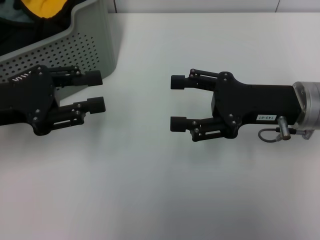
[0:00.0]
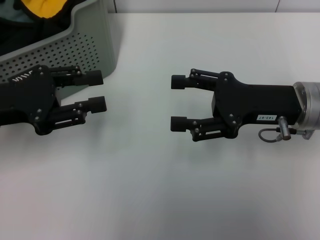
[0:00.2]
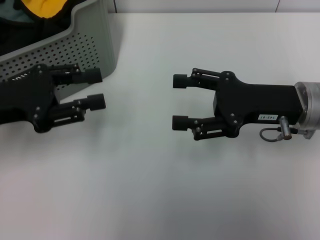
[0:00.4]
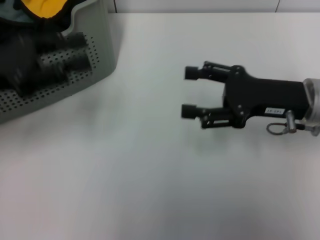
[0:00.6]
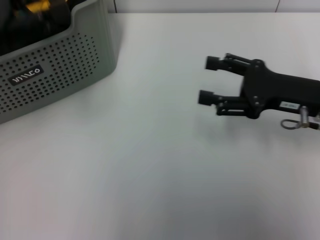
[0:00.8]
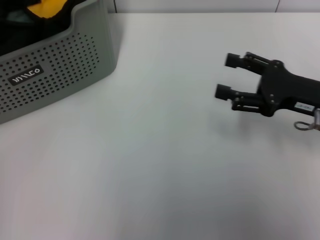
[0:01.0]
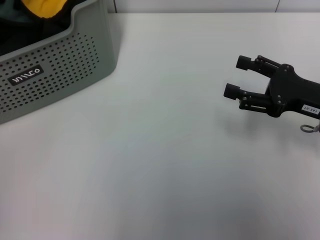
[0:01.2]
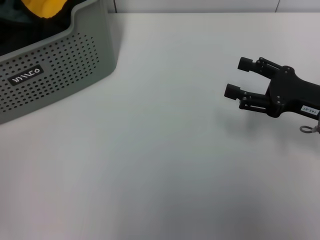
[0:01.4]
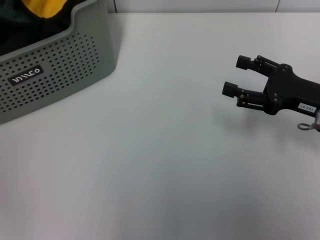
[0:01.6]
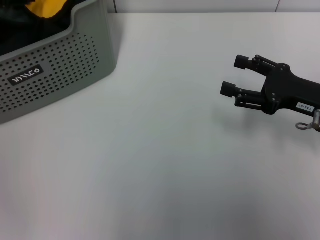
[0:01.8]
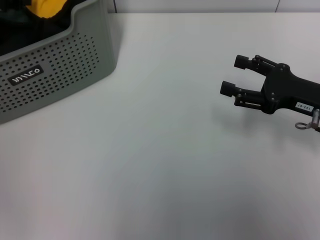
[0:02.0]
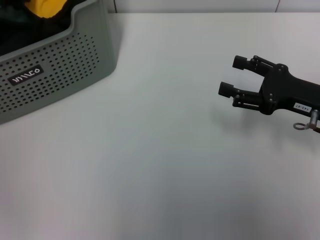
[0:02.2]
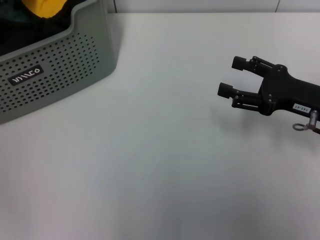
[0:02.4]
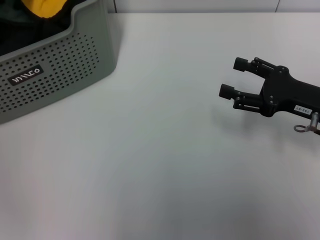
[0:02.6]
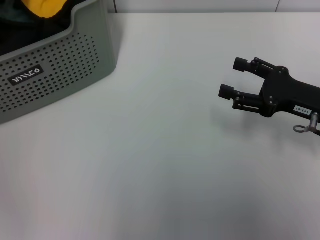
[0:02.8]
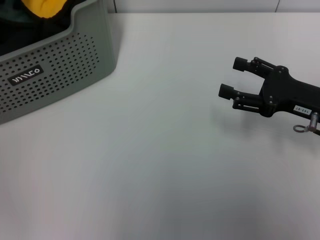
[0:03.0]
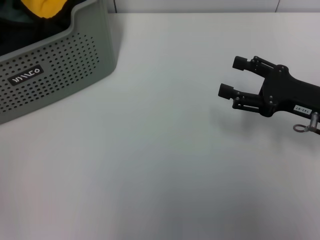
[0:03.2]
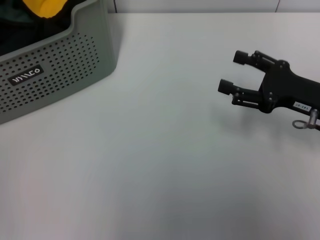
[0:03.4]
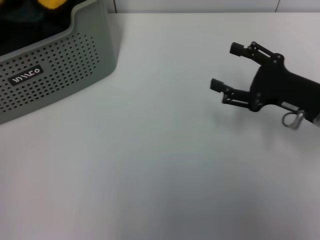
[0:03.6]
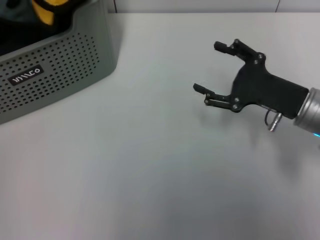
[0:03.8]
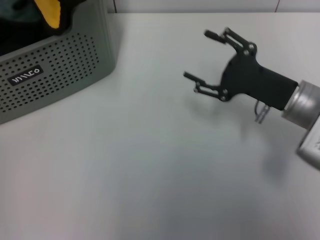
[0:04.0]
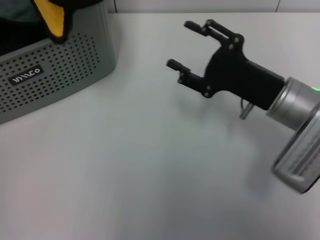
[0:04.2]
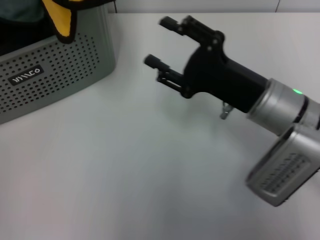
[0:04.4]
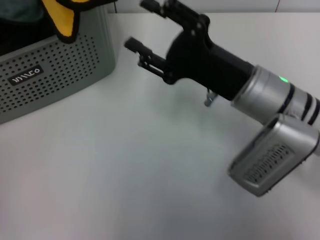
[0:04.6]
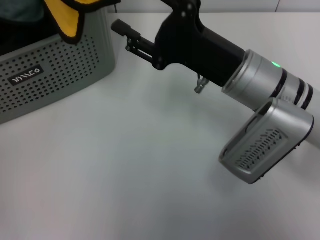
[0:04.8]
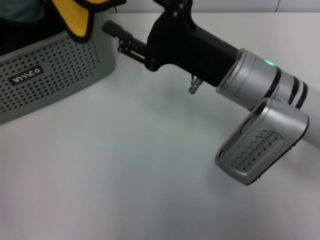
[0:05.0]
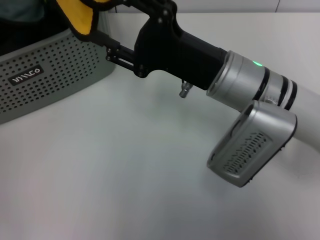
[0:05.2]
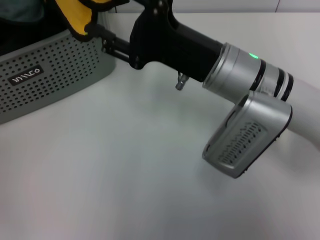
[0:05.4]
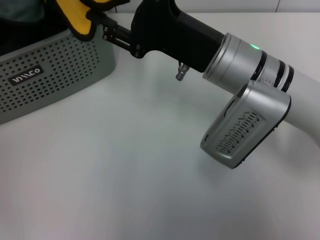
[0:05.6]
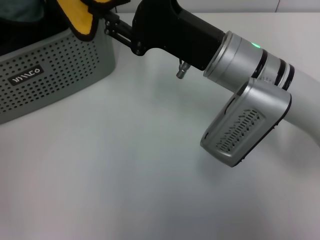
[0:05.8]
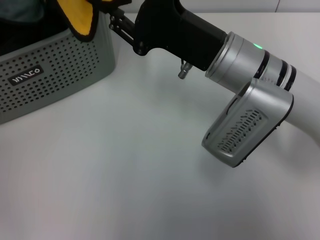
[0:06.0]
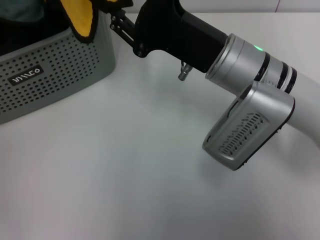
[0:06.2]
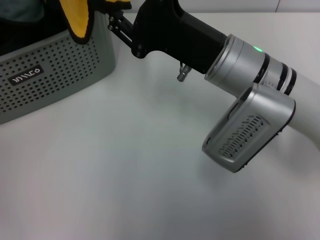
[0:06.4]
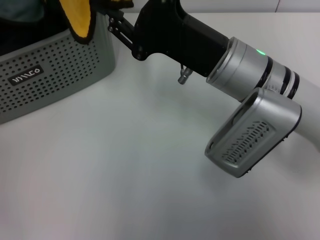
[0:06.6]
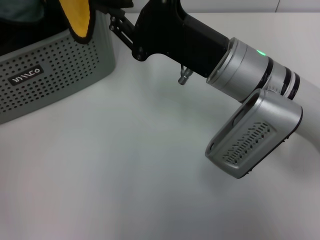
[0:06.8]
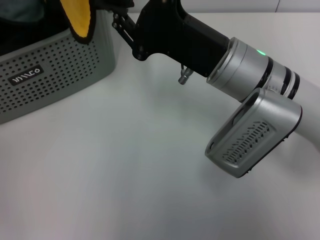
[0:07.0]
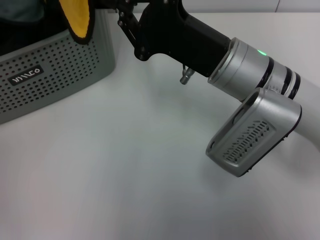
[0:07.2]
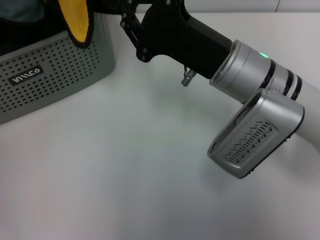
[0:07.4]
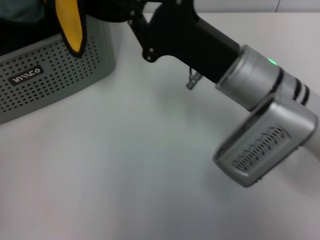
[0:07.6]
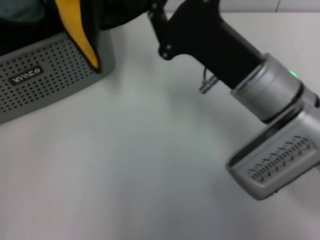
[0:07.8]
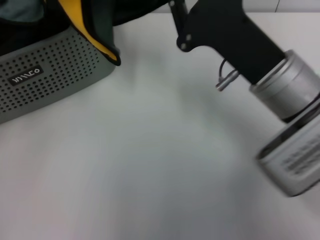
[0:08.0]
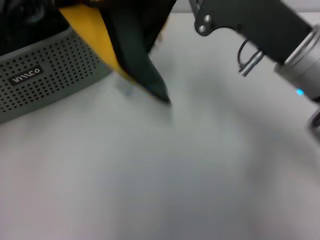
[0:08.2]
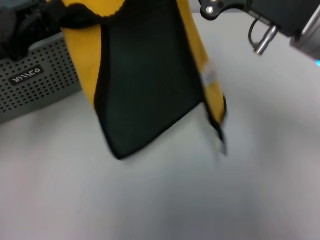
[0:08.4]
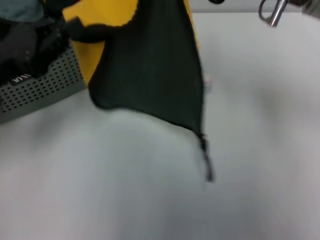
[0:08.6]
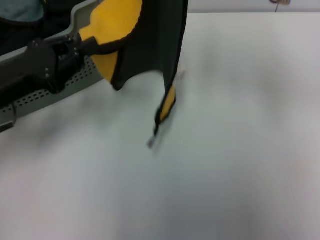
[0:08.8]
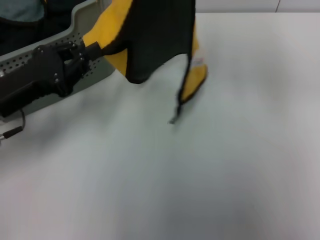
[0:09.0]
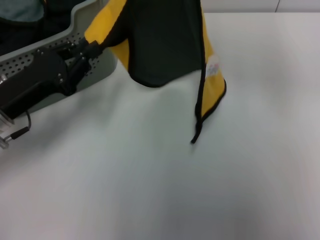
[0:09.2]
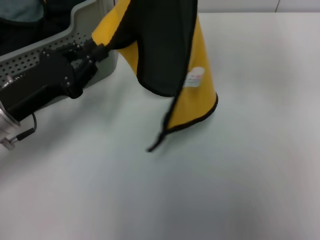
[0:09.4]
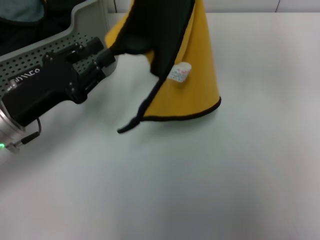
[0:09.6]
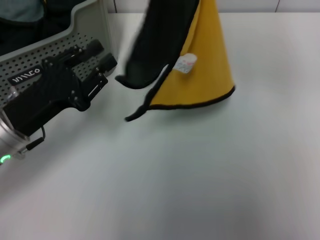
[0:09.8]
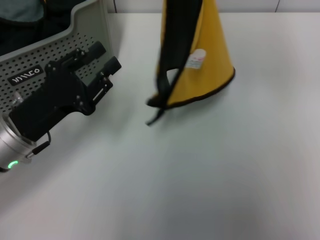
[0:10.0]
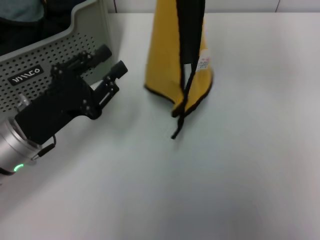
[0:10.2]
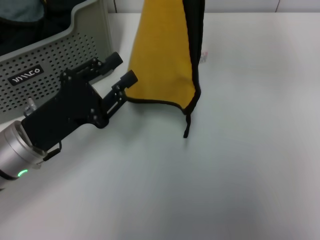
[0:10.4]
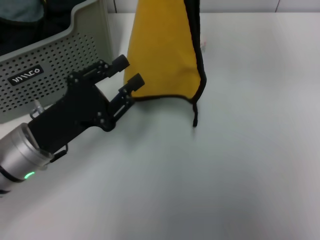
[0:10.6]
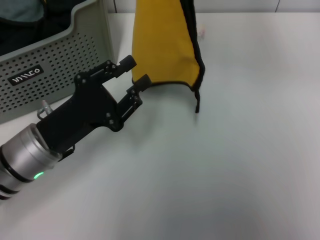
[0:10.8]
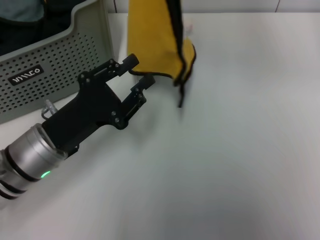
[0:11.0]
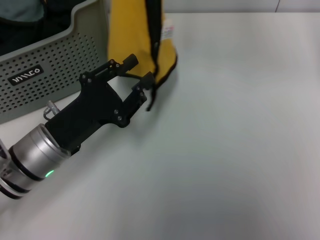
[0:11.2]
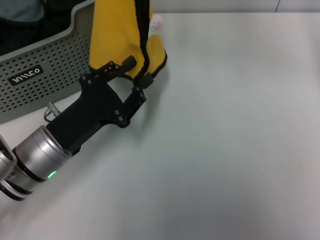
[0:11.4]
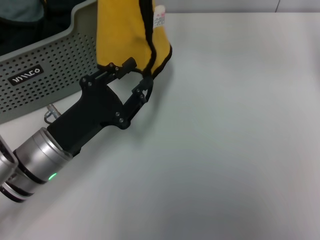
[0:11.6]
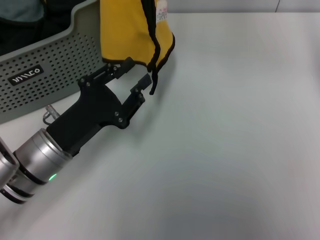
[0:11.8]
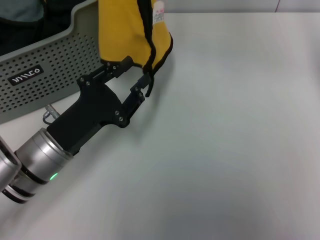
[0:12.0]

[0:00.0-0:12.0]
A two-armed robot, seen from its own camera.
Task of the whole recording: pick up the towel from the storage box and lay it flat on the table.
Step, 0:00.0 to 0:02.4: Pick up a towel with the left gripper.
Step, 0:02.6 to 0:07.2: Spread the towel flat with the left gripper.
0:00.0 to 0:01.6: The left gripper moves upward and forward, about 15 cm, while the right gripper moves to the right, some 5 cm.
0:03.0 to 0:04.4: The right gripper travels to the left by some 10 cm, while the left gripper moves upward and backward, about 10 cm.
0:04.4 to 0:06.0: The right gripper is displaced to the left by approximately 5 cm.
0:06.0 to 0:07.6: The right gripper closes its fingers.
0:07.6 to 0:09.0: The left gripper is displaced downward by some 15 cm. The right gripper moves upward and to the right, about 15 cm.
0:09.0 to 0:10.4: The left gripper ends up about 5 cm from where it was, and opens its fingers.
0:10.4 to 0:12.0: The right gripper is displaced to the left by roughly 5 cm.

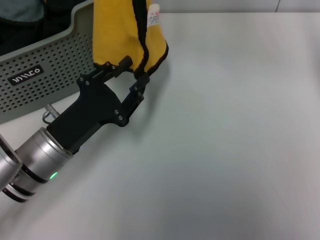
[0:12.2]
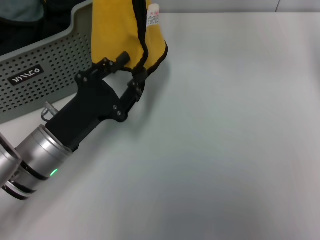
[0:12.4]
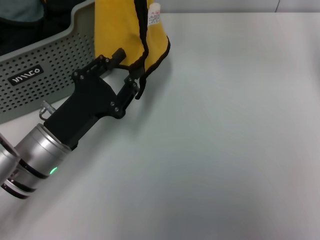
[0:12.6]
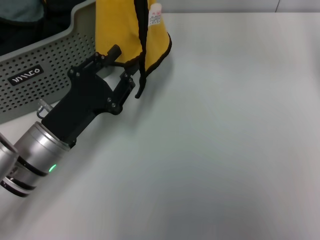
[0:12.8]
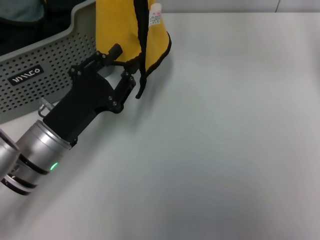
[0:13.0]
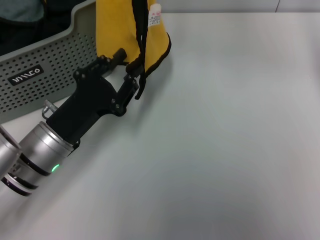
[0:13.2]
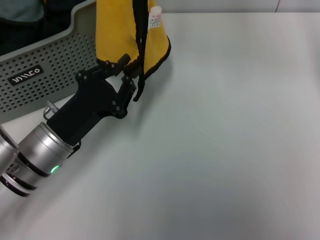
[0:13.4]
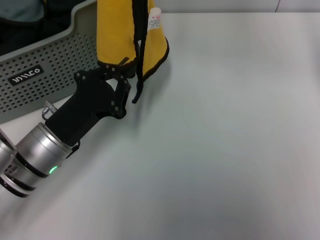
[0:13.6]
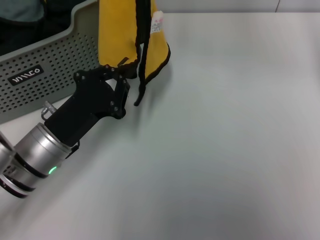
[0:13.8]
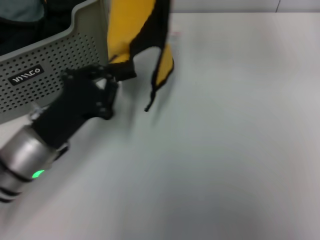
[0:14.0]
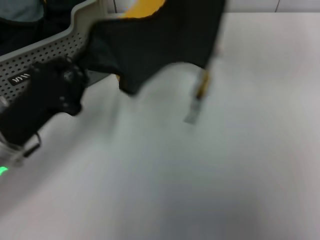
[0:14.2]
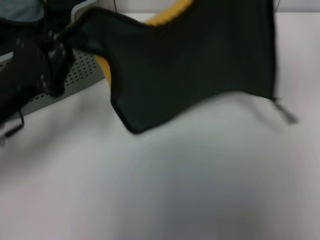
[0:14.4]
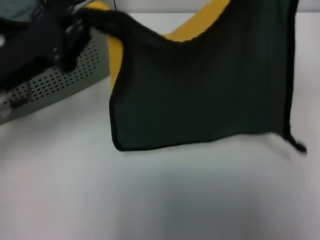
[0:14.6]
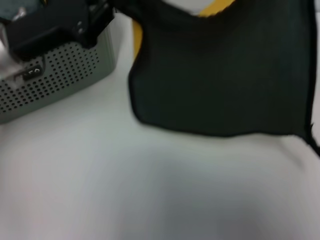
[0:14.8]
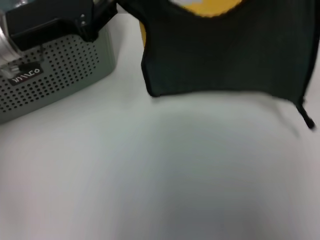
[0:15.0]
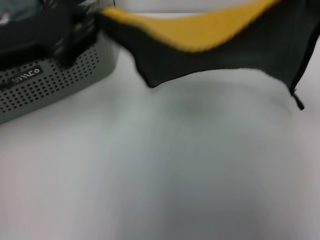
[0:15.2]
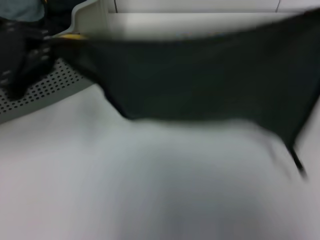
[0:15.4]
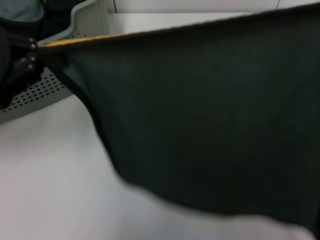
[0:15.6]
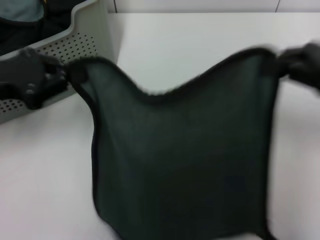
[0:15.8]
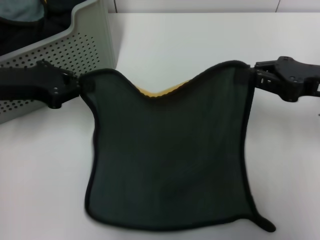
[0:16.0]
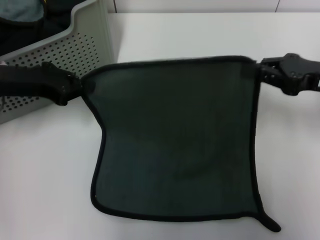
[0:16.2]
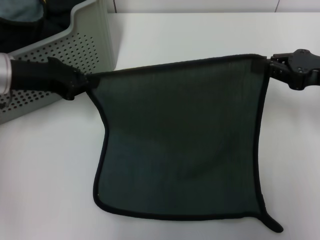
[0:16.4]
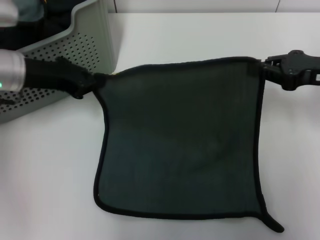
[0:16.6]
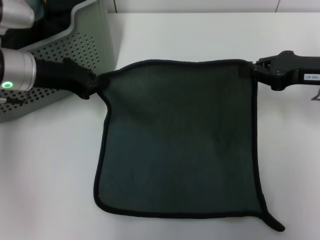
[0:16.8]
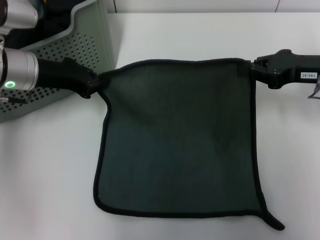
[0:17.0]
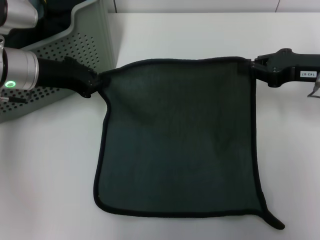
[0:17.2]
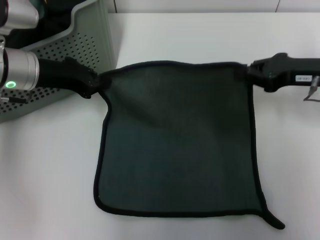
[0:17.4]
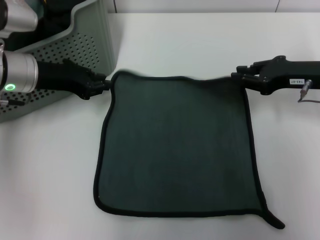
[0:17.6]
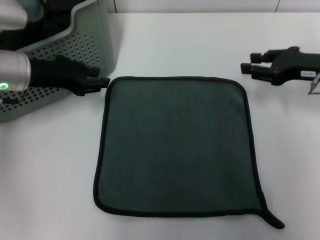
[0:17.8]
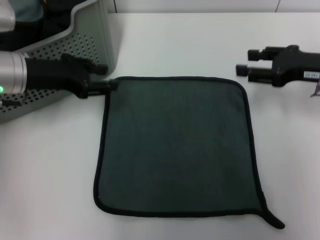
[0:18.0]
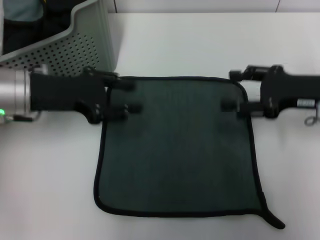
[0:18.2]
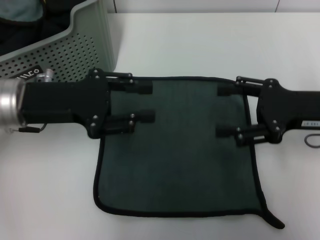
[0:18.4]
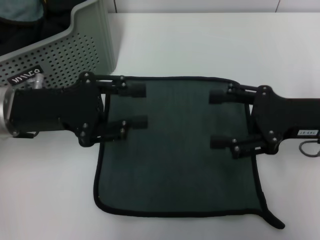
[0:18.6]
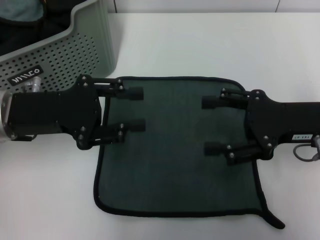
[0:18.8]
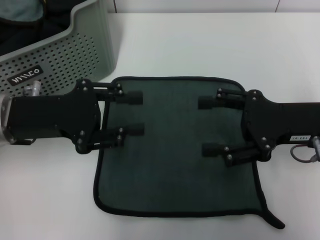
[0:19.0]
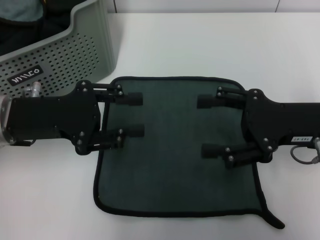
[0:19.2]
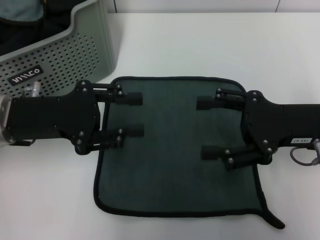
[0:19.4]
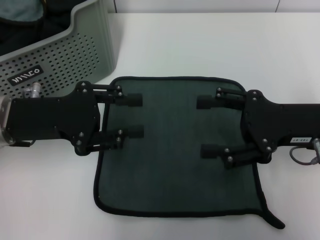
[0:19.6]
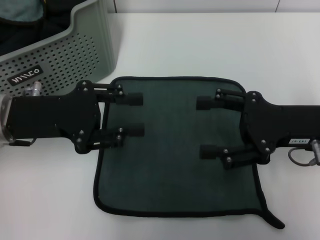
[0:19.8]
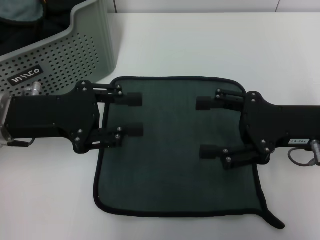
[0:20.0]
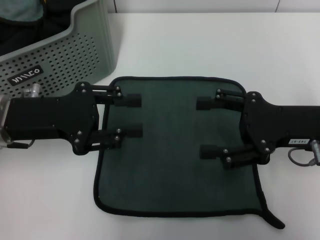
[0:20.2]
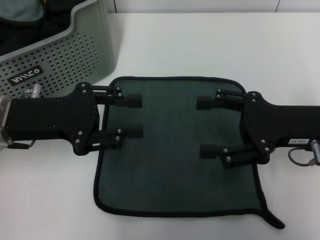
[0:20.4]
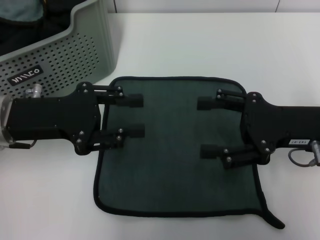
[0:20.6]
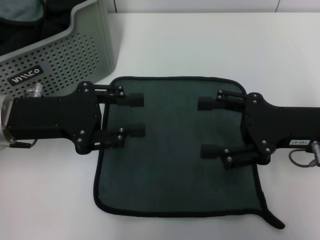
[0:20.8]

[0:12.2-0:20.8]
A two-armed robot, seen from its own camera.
Task of the whole recording: pick up the towel from the storage box and lay it flat on the table.
Step, 0:12.2 to 0:17.6: Spread the towel flat with the right gripper.
0:12.2 to 0:13.6: The grippers make only small movements.
0:13.6 to 0:15.0: The left gripper heads upward and forward, covering some 15 cm, and closes, while the right gripper is displaced to the right by roughly 20 cm.
0:15.0 to 0:16.6: The left gripper moves some 5 cm backward and comes back, while the right gripper is displaced downward by some 15 cm.
0:16.6 to 0:18.0: The right gripper opens its fingers, while the left gripper opens.
0:18.0 to 0:19.4: The grippers both shift backward by some 10 cm. The right gripper opens up.
0:19.4 to 0:20.8: Both grippers stay put.

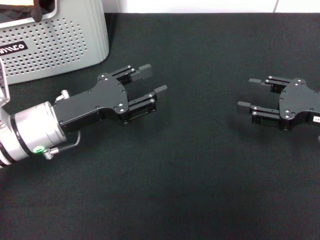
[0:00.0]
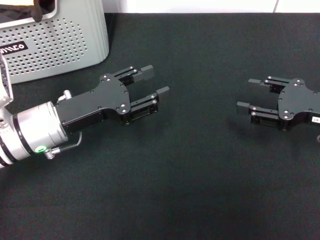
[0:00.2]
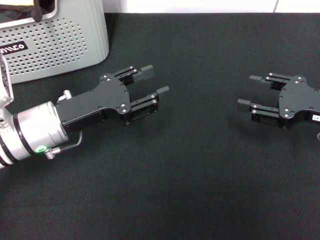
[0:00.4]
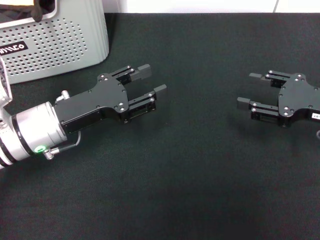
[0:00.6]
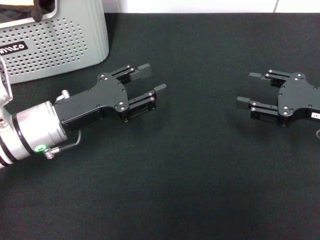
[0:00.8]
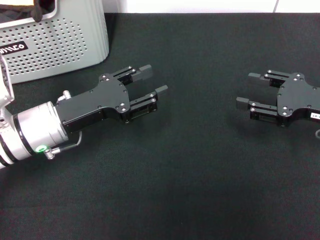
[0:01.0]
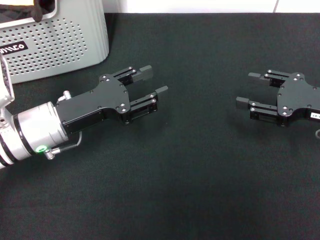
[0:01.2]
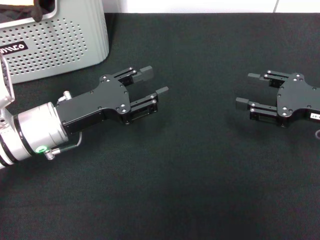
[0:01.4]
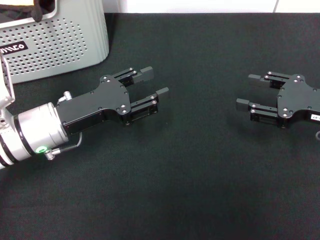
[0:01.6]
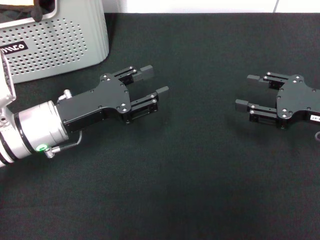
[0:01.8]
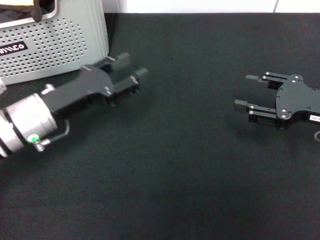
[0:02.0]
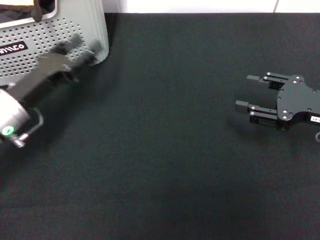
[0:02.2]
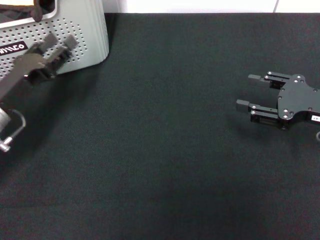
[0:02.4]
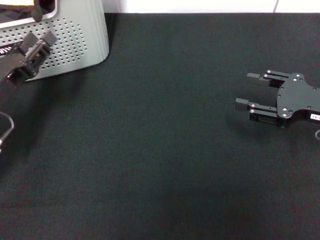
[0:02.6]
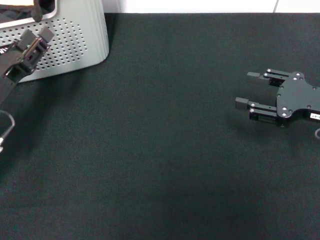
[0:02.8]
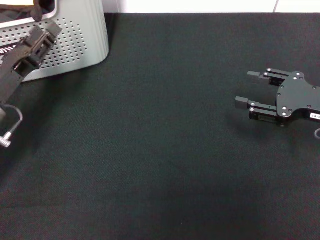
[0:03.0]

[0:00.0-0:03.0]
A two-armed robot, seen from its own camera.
Task of the whole recording: pick up the towel from the storage box and lay it flat on the black tablecloth.
0:00.0 to 0:01.6: Both grippers stay about where they are.
0:01.6 to 0:03.0: The left gripper goes about 10 cm to the left.
